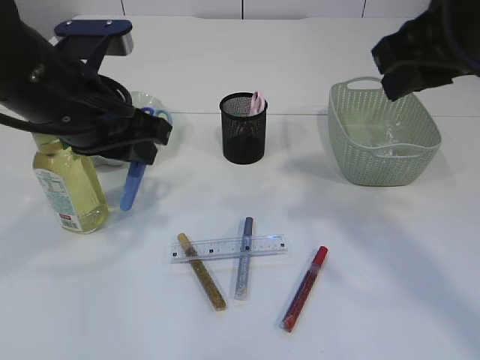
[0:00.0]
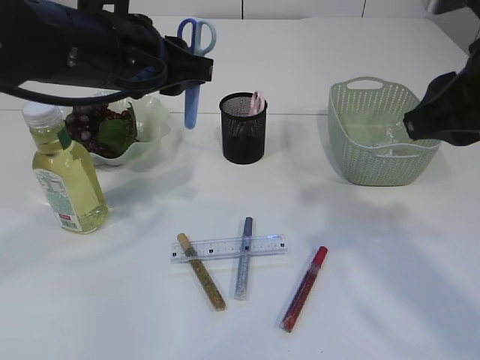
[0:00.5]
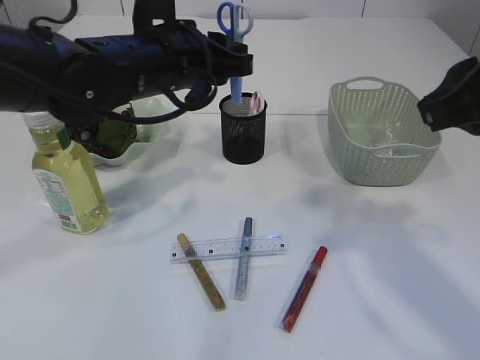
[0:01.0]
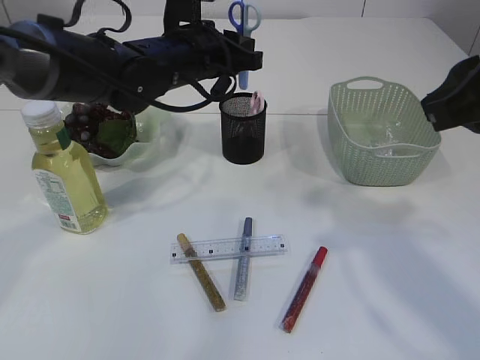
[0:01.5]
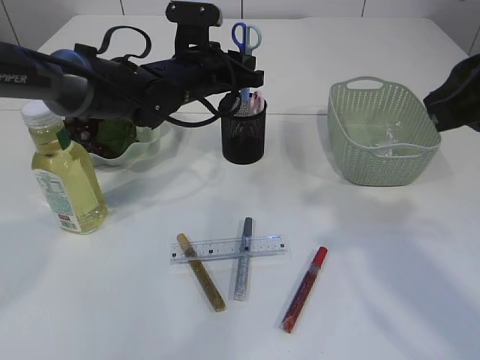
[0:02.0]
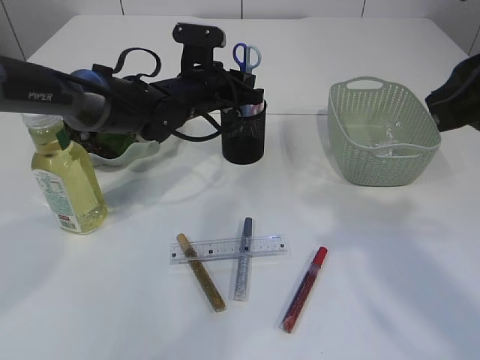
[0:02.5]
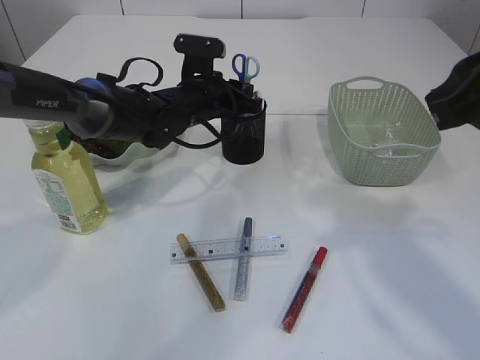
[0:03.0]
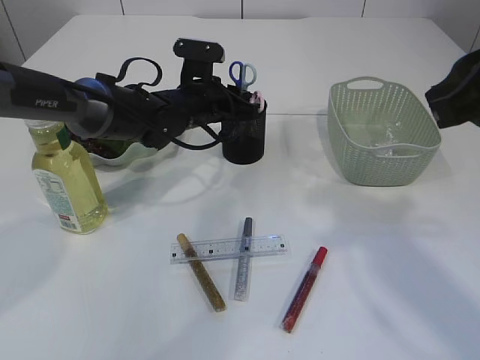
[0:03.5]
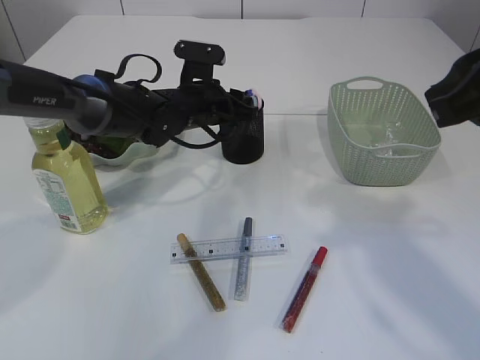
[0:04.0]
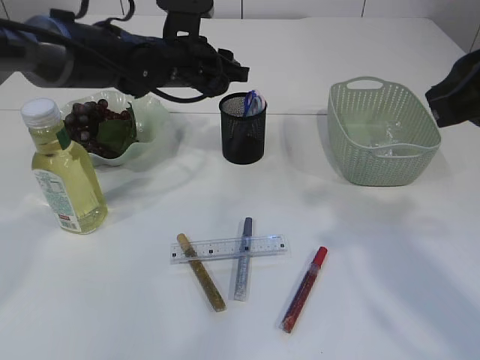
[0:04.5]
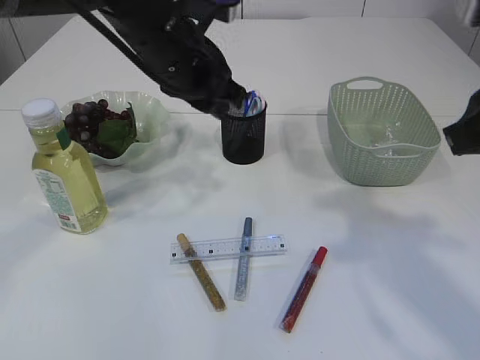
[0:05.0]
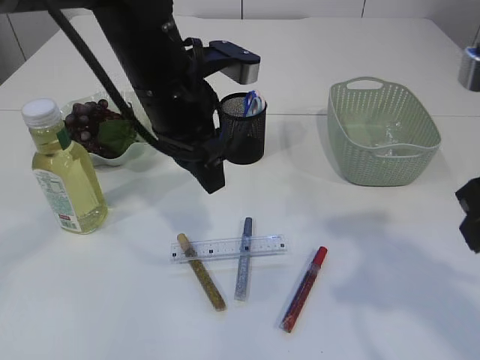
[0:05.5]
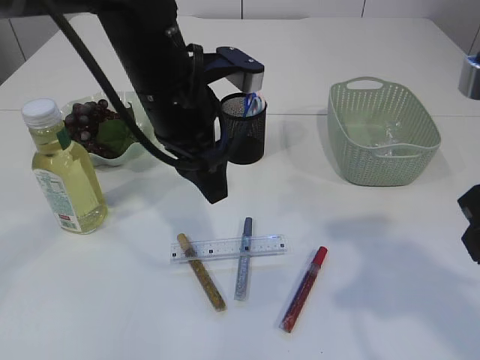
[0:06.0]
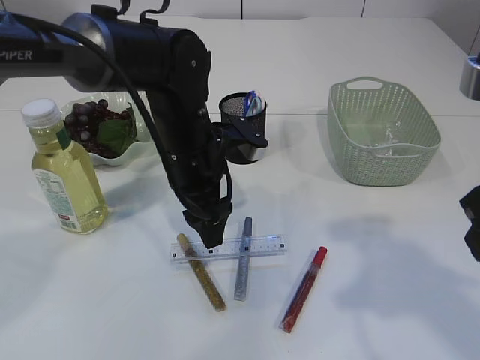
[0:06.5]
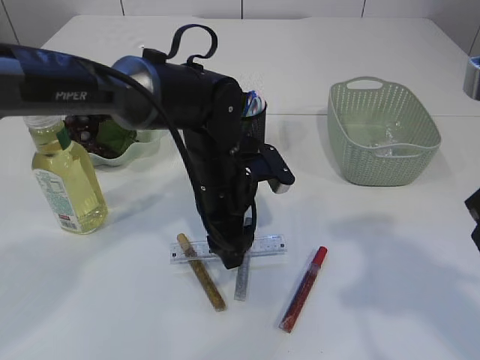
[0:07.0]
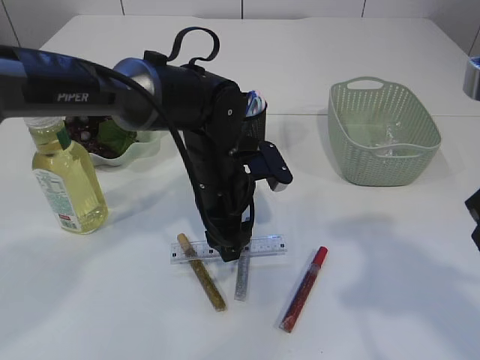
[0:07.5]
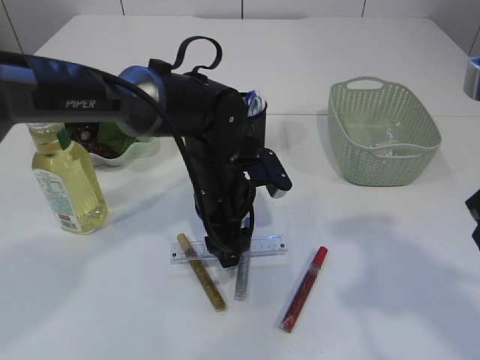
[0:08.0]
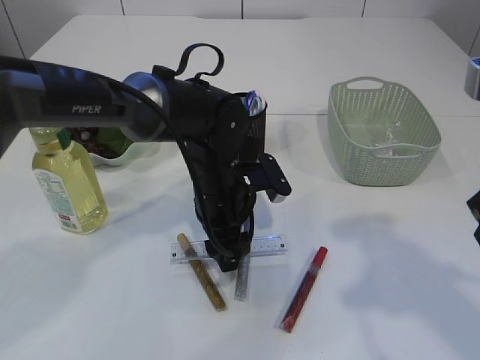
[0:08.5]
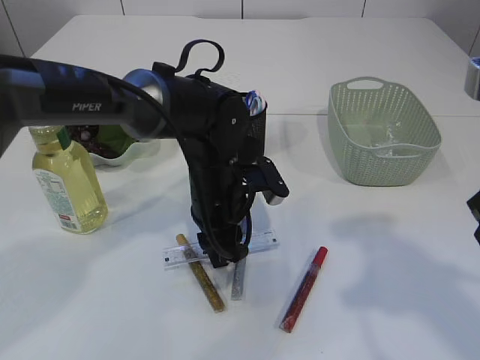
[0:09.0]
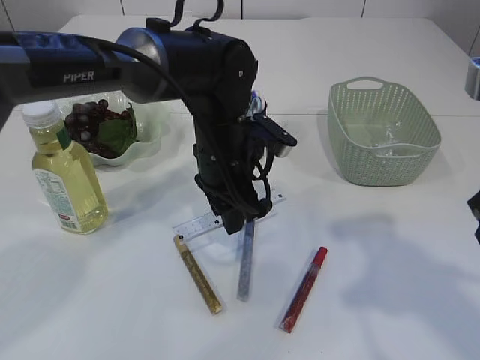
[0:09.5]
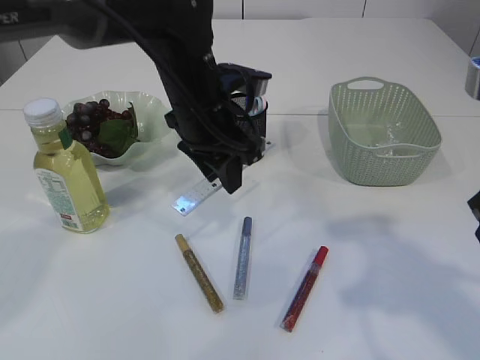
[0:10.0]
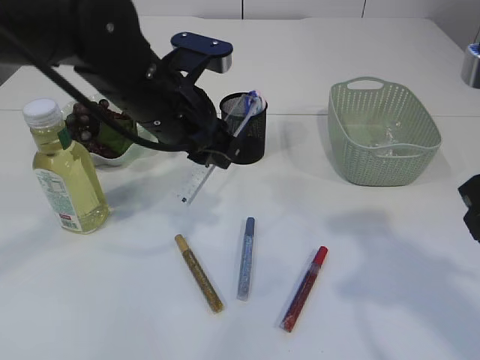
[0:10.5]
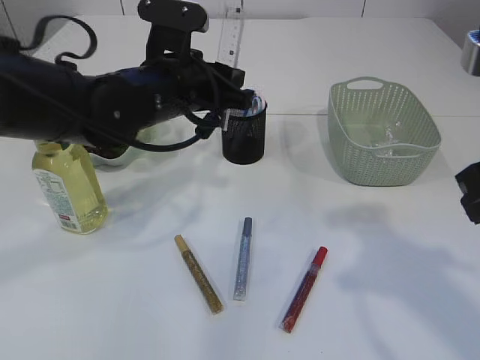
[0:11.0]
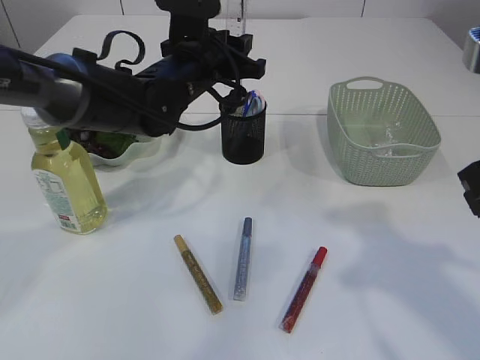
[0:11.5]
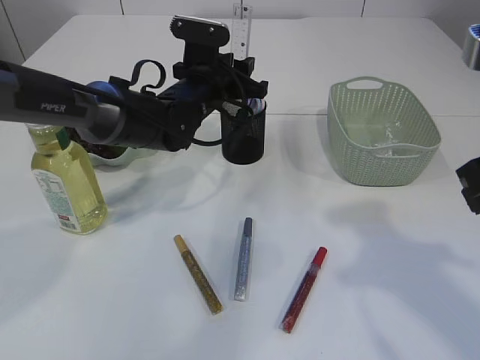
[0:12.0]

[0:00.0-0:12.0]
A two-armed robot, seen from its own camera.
Step, 0:00.0 to 0:04.5: Place the blue scissors into the pen holder.
Step, 0:05.0 to 0:10.0: pick up the ruler.
0:00.0 to 0:02.0: The right gripper shifts by roughly 5 cm. Meanwhile the left gripper heads forward, to the right and downward, covering roughly 20 cm.
0:02.0 to 0:04.0: The left gripper heads downward, covering about 5 cm.
0:04.0 to 0:06.0: The right gripper shifts by approximately 5 cm, while the left gripper goes some 20 cm backward and upward.
0:06.0 to 0:08.0: The left gripper travels downward by roughly 15 cm.
0:08.0 to 0:10.0: The left gripper is displaced upward by roughly 10 cm, and closes its fingers.
0:10.0 to 0:12.0: The left gripper is displaced forward by some 10 cm.

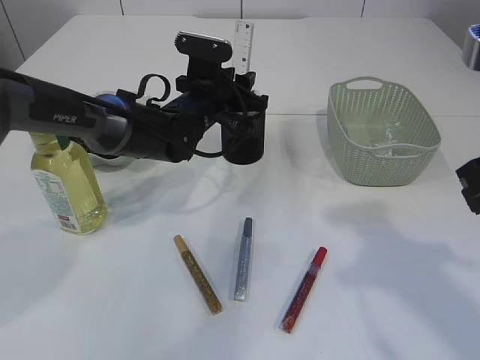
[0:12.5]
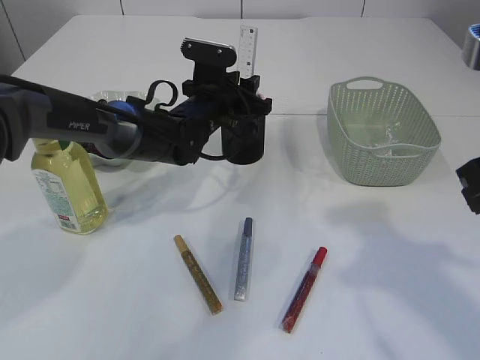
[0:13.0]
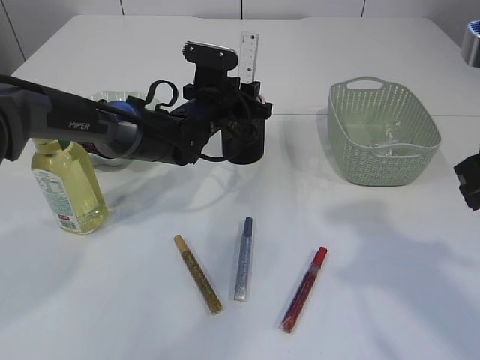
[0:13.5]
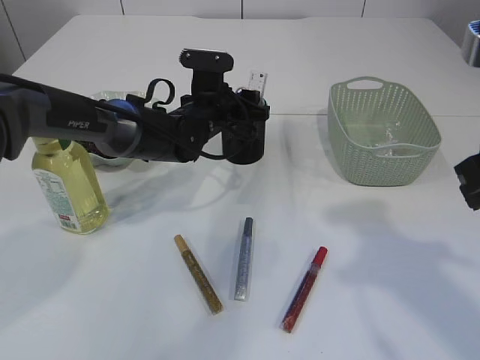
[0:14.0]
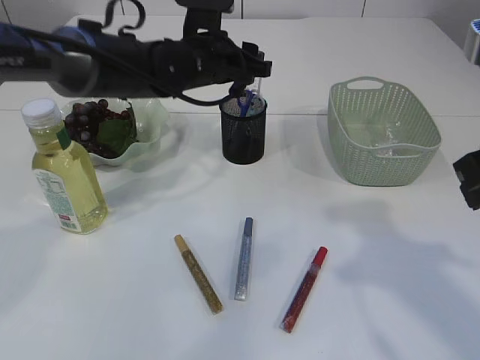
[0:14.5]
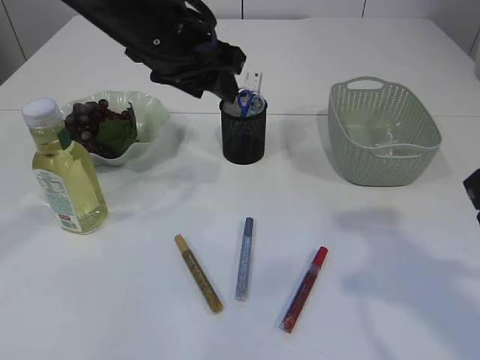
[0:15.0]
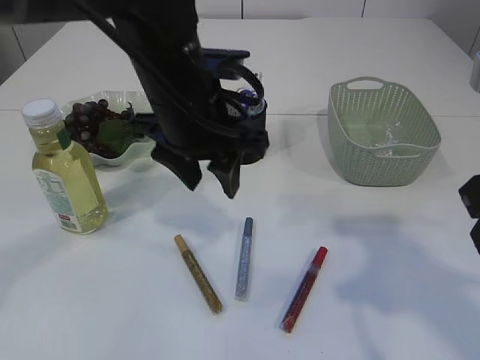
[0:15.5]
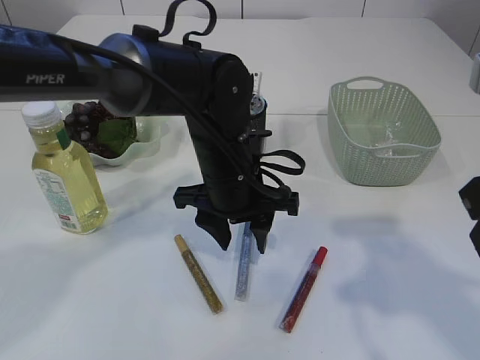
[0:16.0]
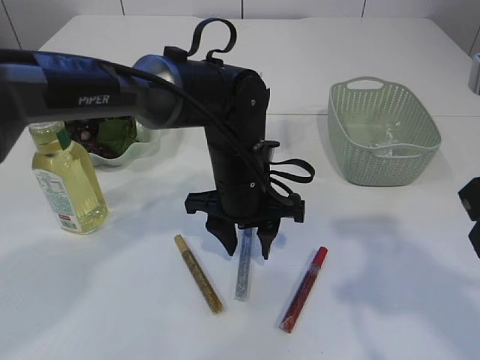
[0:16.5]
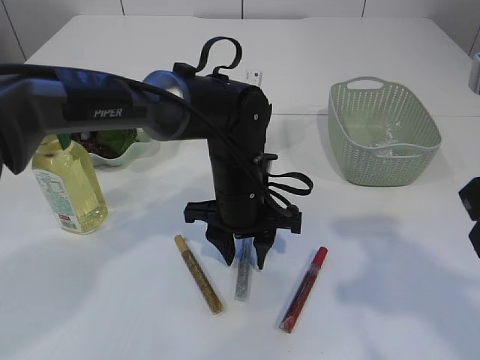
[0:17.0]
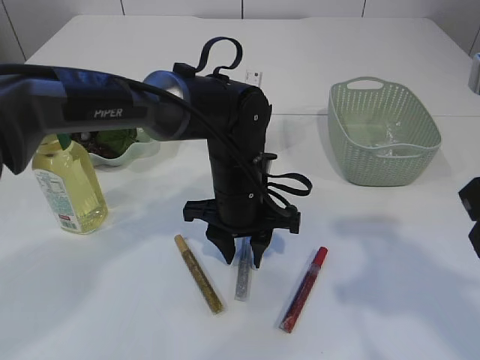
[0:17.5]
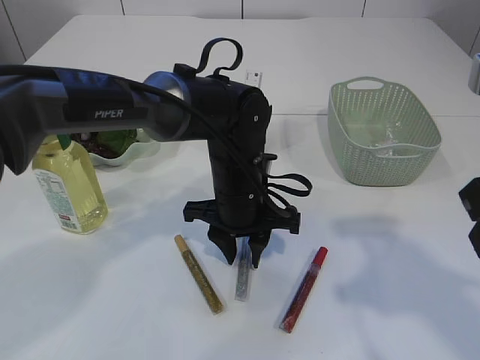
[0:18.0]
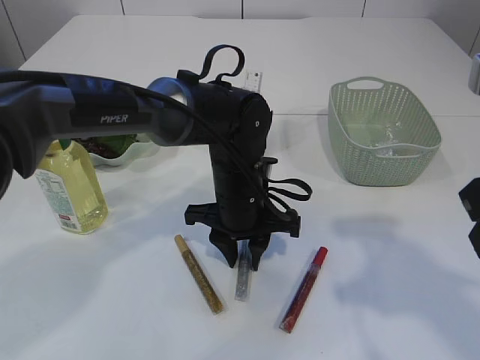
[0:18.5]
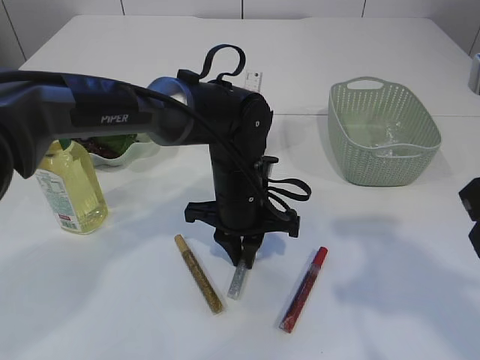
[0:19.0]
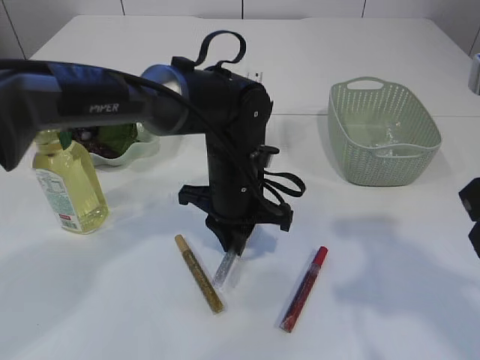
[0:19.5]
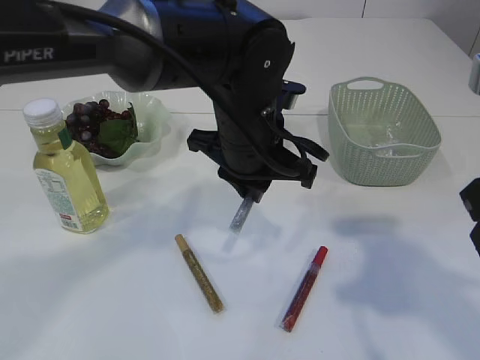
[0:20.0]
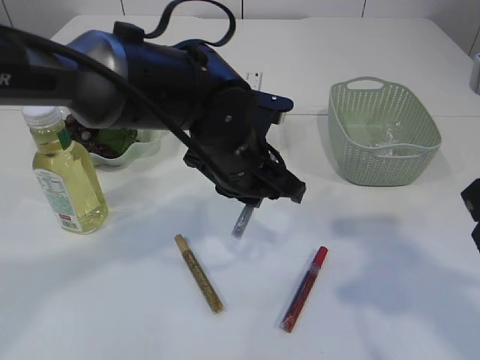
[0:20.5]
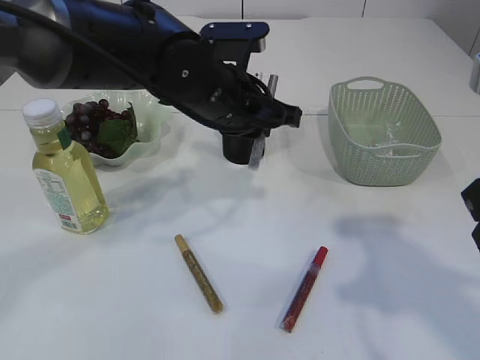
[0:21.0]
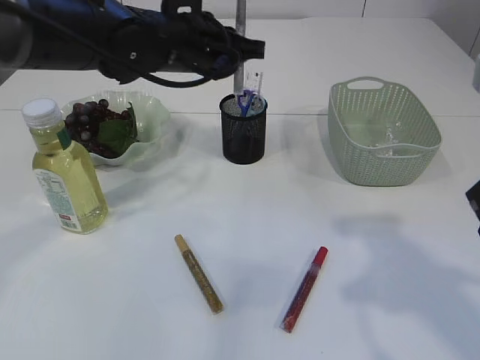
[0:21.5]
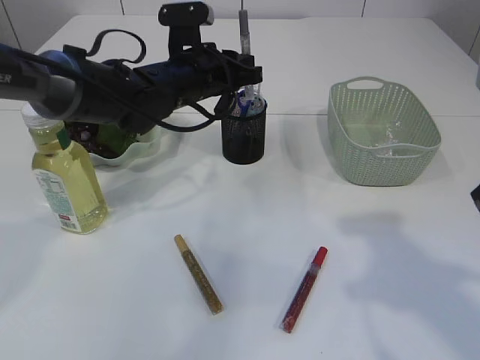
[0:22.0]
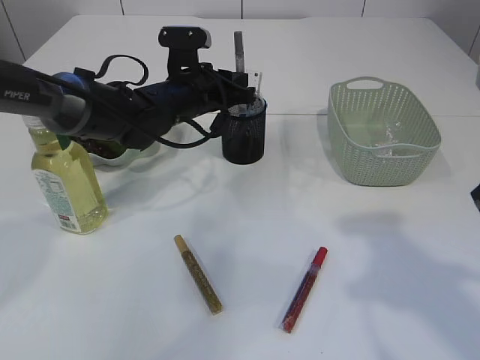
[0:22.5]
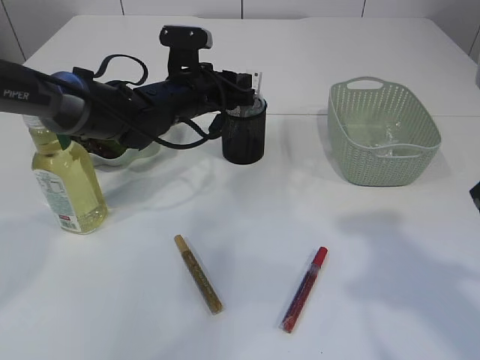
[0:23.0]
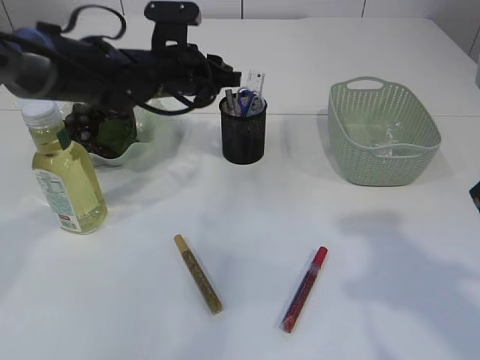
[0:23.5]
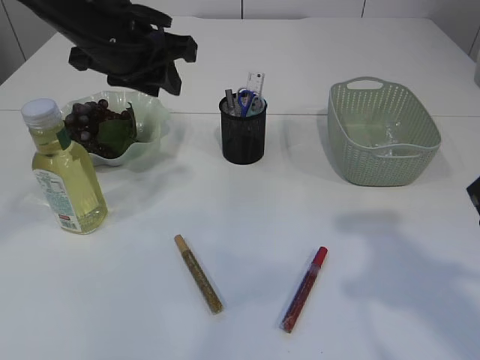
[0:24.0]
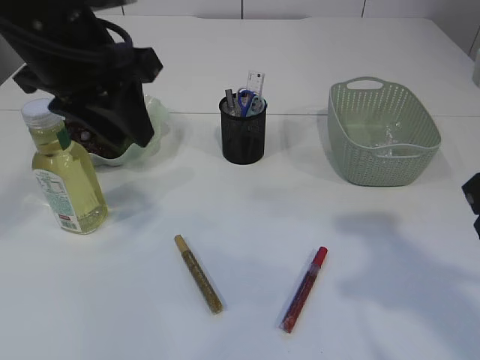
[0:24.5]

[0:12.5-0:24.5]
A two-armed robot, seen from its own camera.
Step, 0:12.5 to 0:14.5: Place the ruler into the pen holder.
Step, 0:15.0 to 0:20.0: pick up the silver glue.
Step, 0:20.5 to 0:23.5: place the silver glue into the pen holder.
0:12.5 to 0:14.5: The left gripper shifts some 5 cm upward.
0:14.5 to 0:16.5: The left gripper goes some 15 cm backward, downward and to the right.
0:16.5 to 0:18.5: The grippers make only small movements.
0:18.5 to 0:20.5: The left gripper is displaced upward by roughly 5 cm, and closes up.
0:20.5 to 0:22.5: The left gripper heads forward and to the left, covering about 15 cm.
0:22.5 to 0:24.5: The left gripper heads upward and backward, covering some 20 cm.

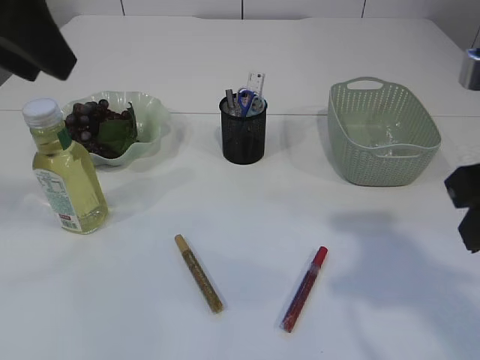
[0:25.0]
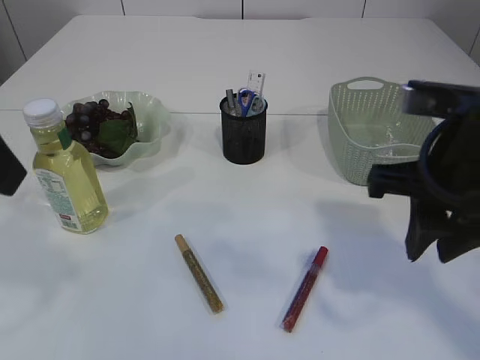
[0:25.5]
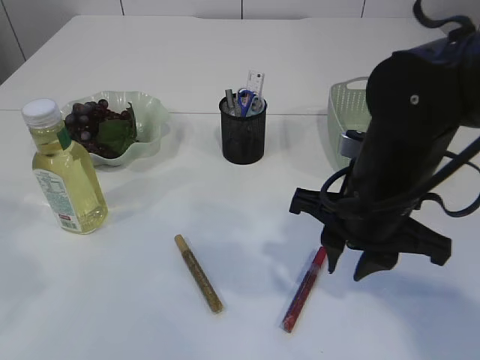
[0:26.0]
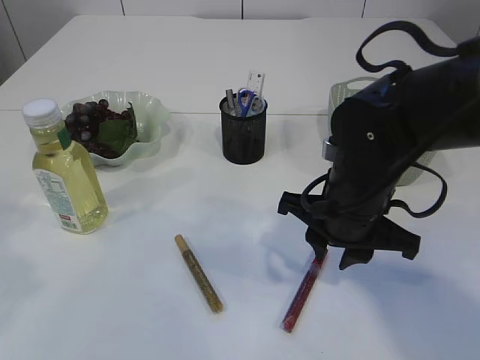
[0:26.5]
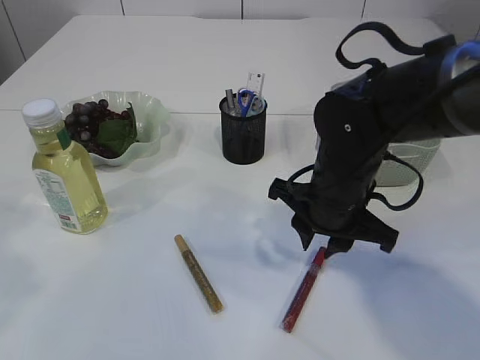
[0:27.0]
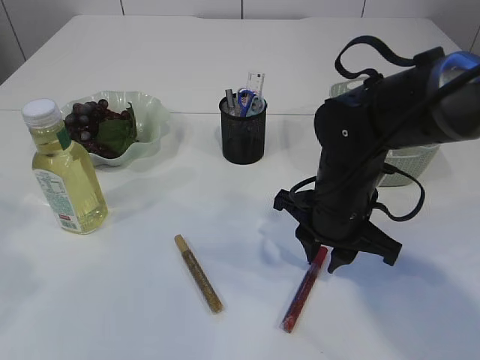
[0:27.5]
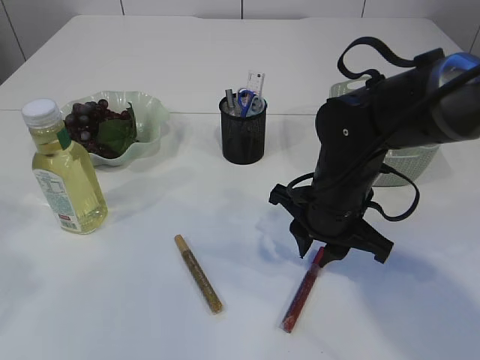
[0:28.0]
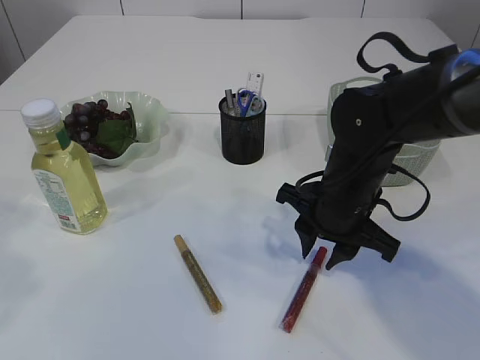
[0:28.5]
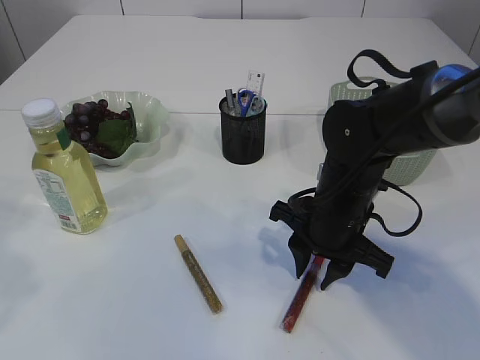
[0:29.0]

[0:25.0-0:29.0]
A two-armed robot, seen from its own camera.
0:25.0 to 0:27.0: The left gripper travels backward and to the left by approximately 10 cm; the right gripper heads downward, forward and to the left, covering about 20 cm.
0:27.0 to 0:29.0: The grippers stay close to where they were, moving slightly.
